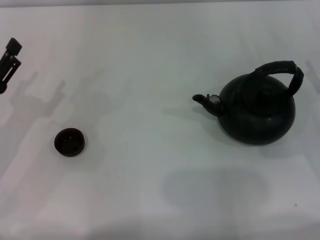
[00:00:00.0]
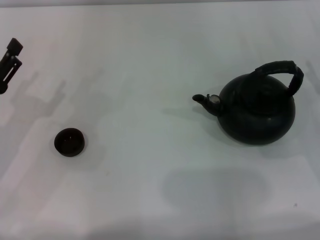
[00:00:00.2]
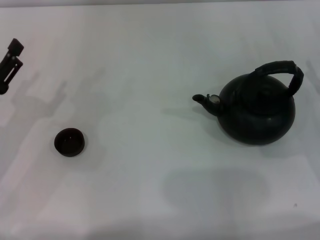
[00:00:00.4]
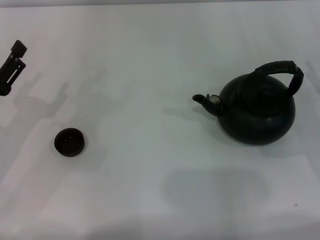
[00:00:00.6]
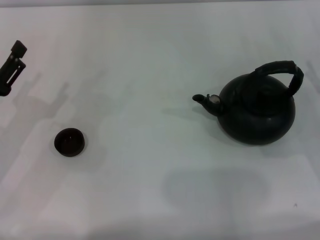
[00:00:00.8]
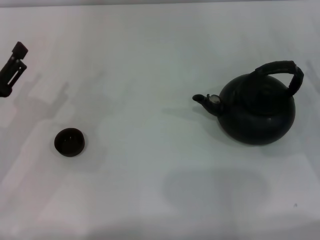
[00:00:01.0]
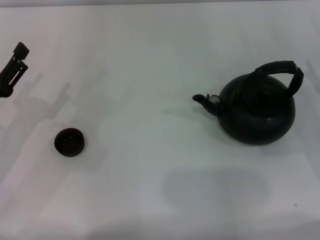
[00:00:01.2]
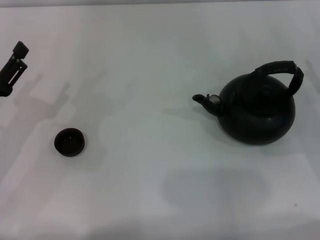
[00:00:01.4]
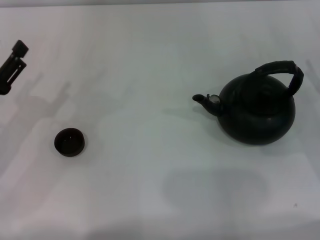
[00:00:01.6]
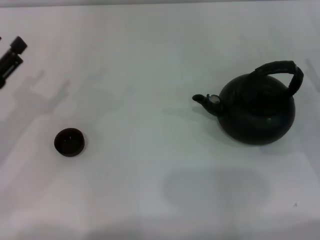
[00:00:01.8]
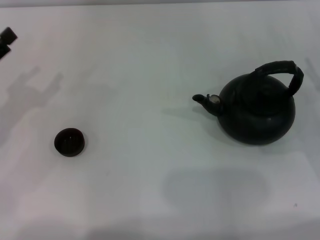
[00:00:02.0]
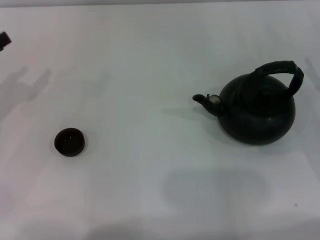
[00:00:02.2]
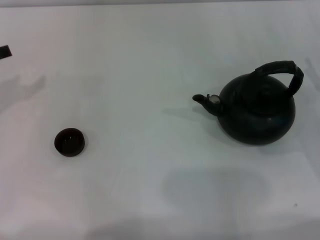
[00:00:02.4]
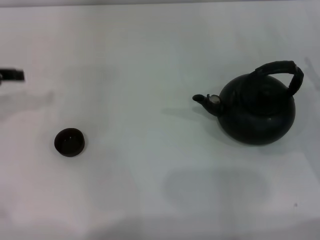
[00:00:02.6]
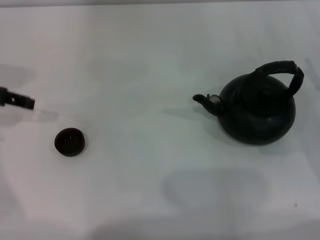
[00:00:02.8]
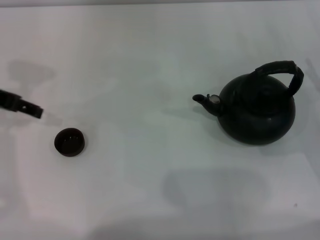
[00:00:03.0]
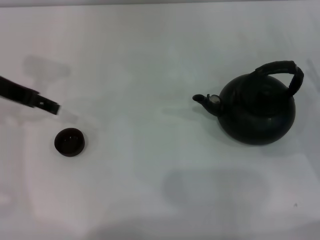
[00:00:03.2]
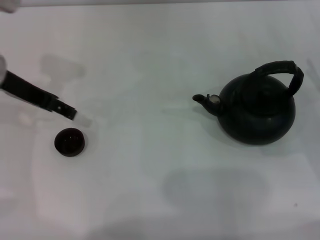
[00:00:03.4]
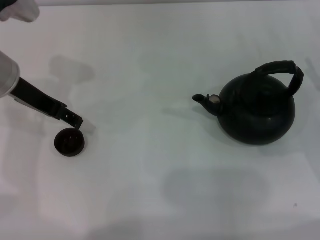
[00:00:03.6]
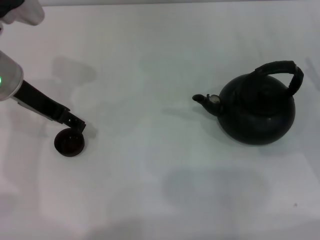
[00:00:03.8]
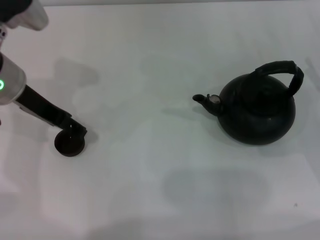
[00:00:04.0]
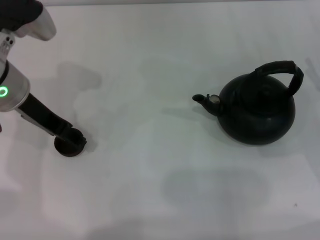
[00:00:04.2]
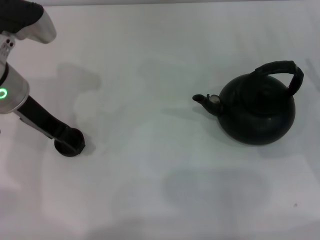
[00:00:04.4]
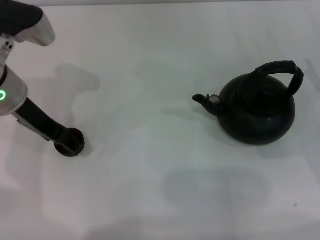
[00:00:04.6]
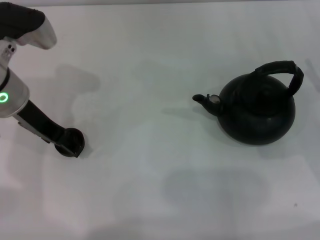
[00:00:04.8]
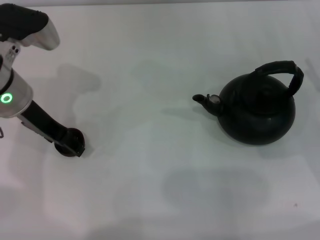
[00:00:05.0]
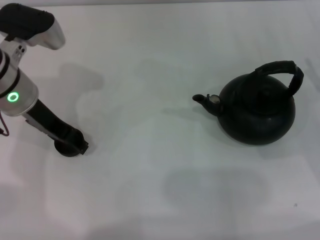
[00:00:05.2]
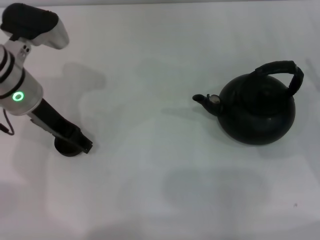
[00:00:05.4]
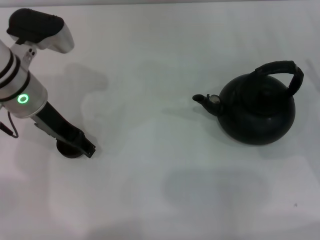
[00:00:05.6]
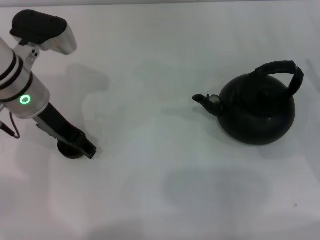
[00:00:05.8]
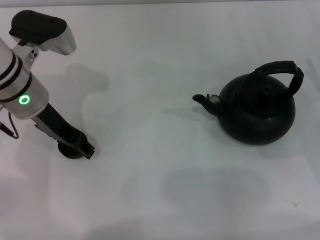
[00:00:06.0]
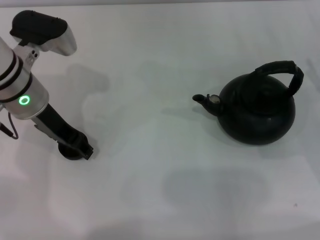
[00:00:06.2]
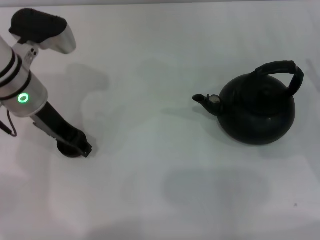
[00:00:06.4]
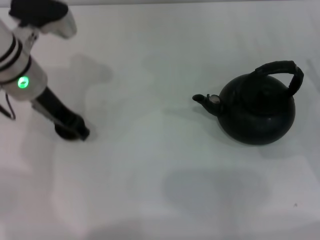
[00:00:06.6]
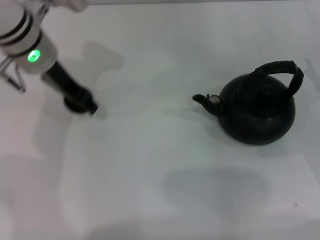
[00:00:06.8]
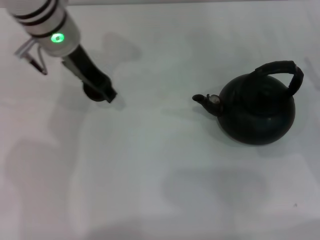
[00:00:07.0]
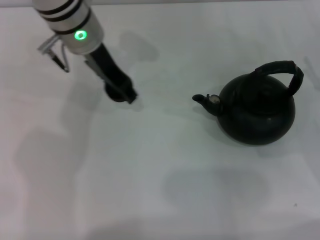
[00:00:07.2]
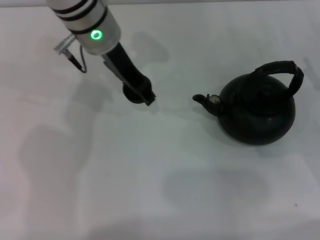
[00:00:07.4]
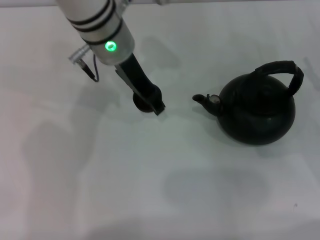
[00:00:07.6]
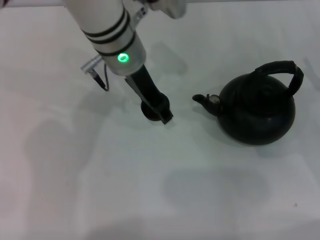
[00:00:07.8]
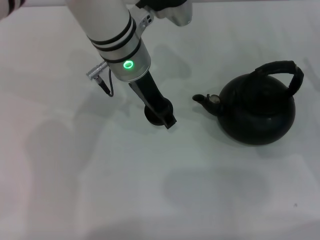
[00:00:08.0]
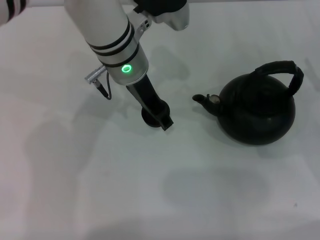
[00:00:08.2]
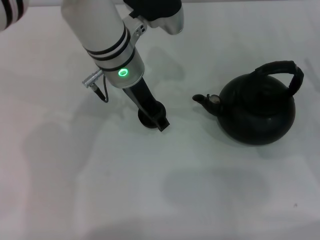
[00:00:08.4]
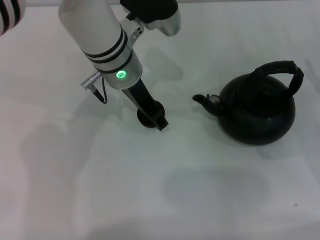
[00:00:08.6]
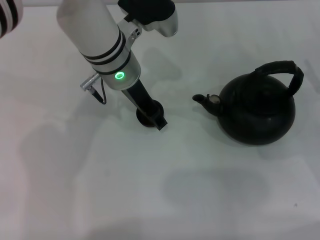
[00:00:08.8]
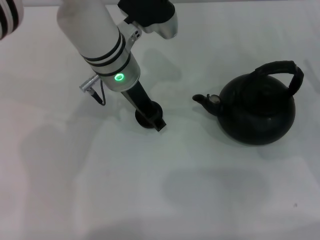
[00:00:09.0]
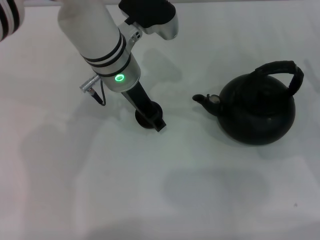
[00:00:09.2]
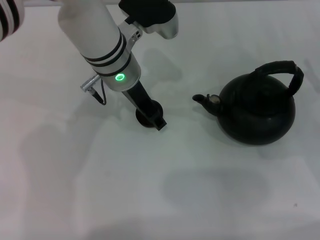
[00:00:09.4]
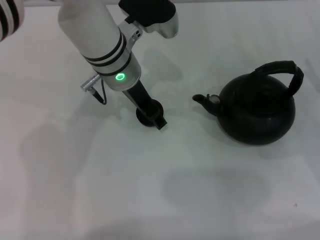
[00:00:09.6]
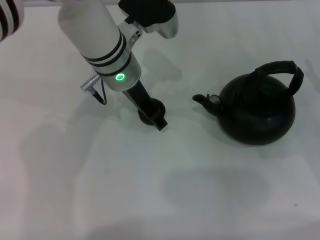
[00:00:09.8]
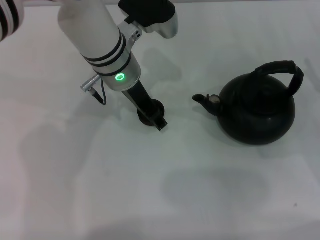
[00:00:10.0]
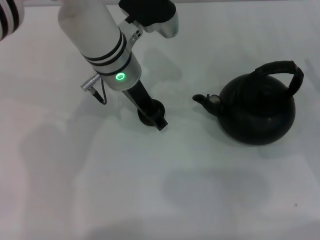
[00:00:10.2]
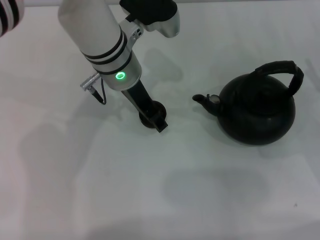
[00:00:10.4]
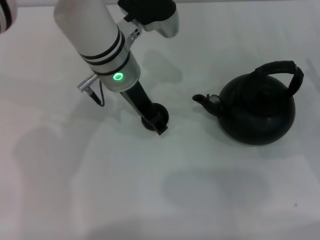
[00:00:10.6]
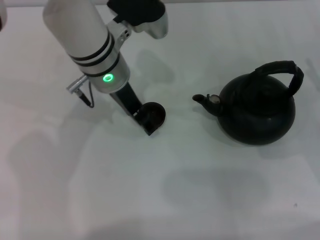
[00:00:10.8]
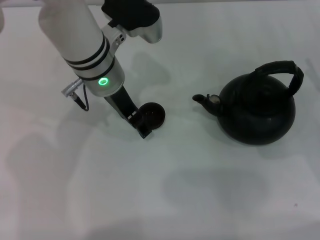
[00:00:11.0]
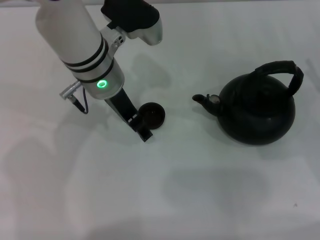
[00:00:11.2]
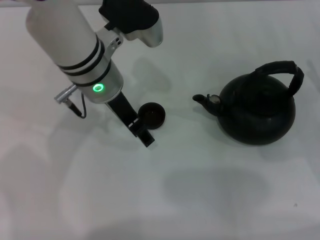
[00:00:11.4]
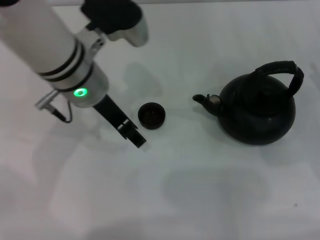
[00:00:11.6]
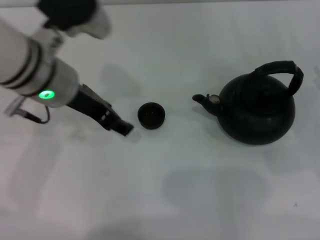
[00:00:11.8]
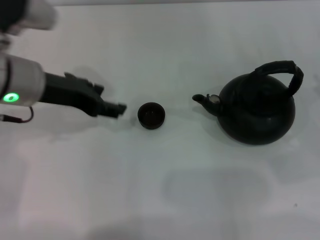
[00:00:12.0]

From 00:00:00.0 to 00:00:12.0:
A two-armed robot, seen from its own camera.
Task of the whole recording: Grasp the handle of the teapot with one hand and pour tea into the teacup.
Step, from 00:00:00.0 to 00:00:06.8: Pick up the teacup with the left gripper.
Step, from 00:00:07.0 to 00:00:11.2: Place the teacup in the center of view with the left gripper.
From 00:00:01.6 to 00:00:03.0: The left gripper travels upward and forward by about 15 cm.
From 00:00:03.0 to 00:00:04.4: The left gripper moves to the right, roughly 5 cm.
From 00:00:04.4 to 00:00:06.0: The grippers move only a little.
From 00:00:06.0 to 00:00:07.6: The left gripper goes roughly 15 cm to the right and forward, and closes its fingers.
From 00:00:07.6 to 00:00:09.0: There are only small adjustments of the grippers.
From 00:00:09.0 to 00:00:10.4: The left gripper opens.
From 00:00:10.4 to 00:00:12.0: The left gripper travels to the left and backward by about 15 cm.

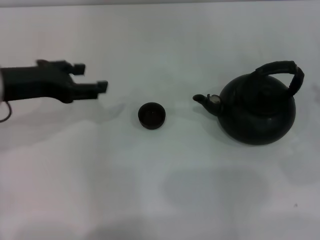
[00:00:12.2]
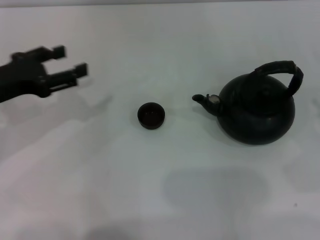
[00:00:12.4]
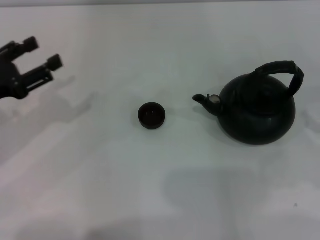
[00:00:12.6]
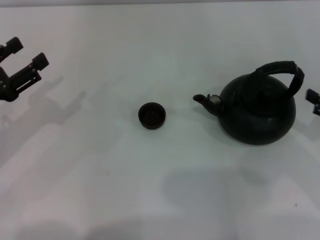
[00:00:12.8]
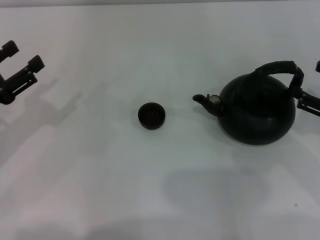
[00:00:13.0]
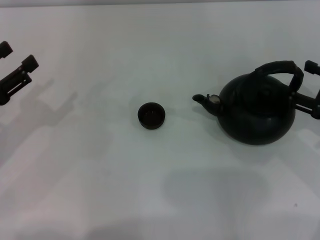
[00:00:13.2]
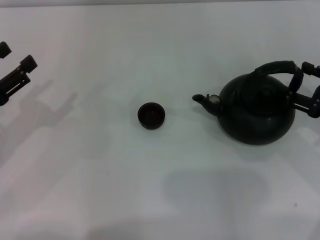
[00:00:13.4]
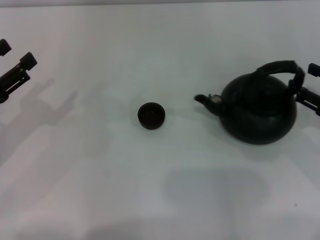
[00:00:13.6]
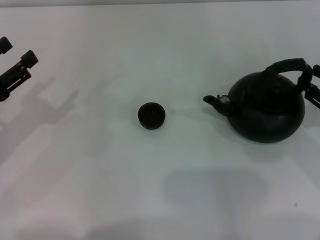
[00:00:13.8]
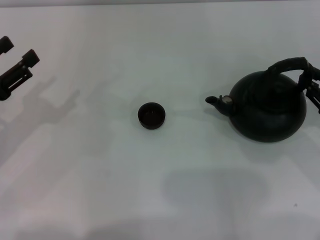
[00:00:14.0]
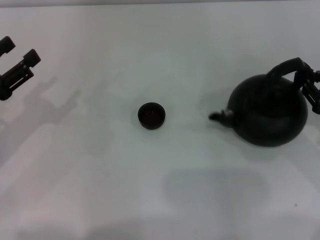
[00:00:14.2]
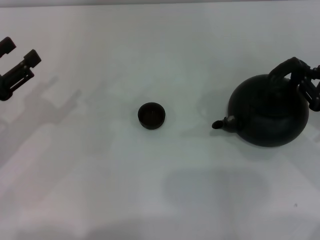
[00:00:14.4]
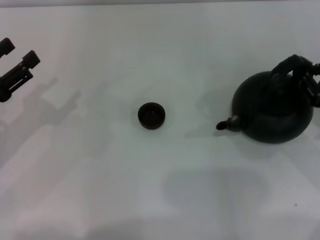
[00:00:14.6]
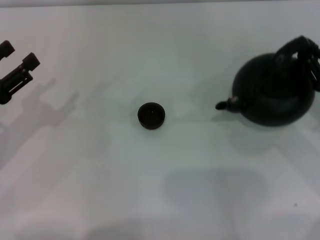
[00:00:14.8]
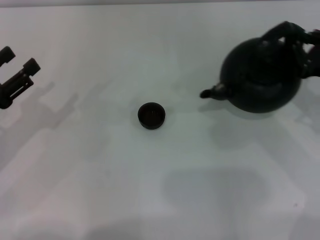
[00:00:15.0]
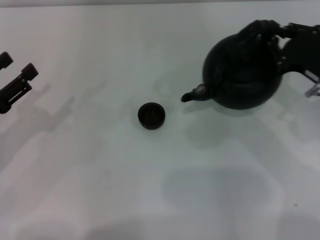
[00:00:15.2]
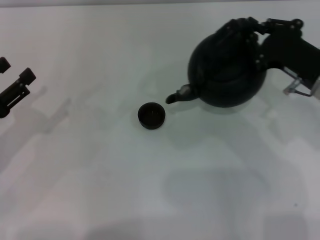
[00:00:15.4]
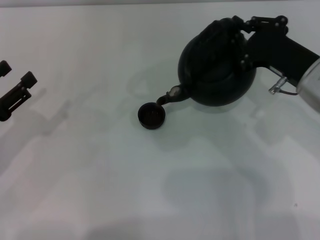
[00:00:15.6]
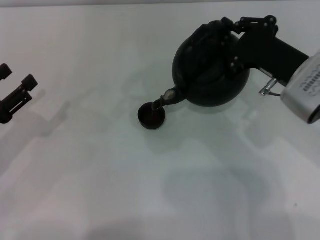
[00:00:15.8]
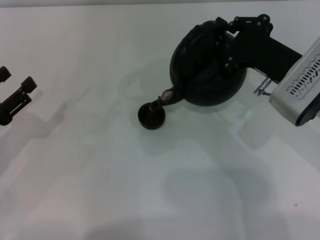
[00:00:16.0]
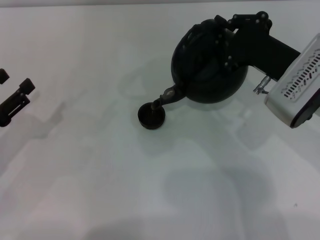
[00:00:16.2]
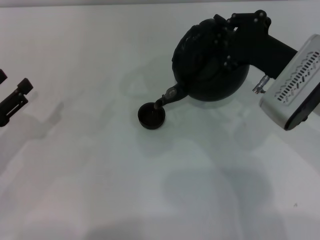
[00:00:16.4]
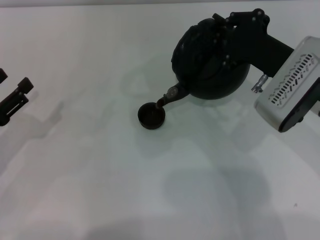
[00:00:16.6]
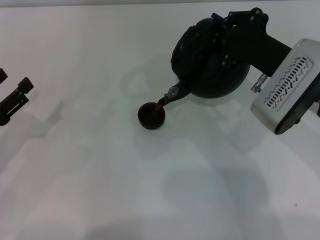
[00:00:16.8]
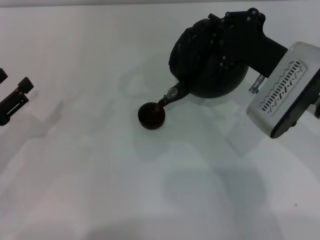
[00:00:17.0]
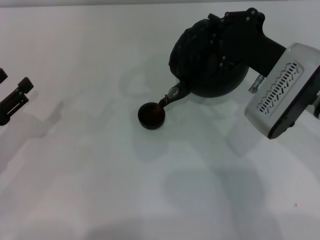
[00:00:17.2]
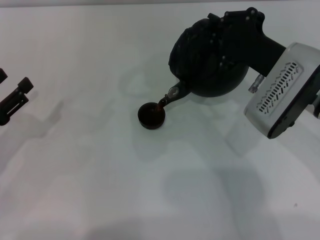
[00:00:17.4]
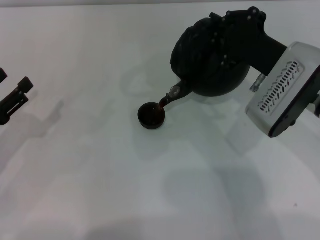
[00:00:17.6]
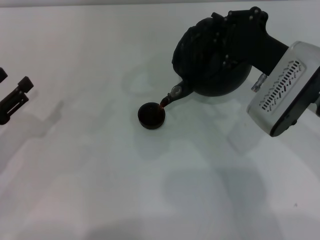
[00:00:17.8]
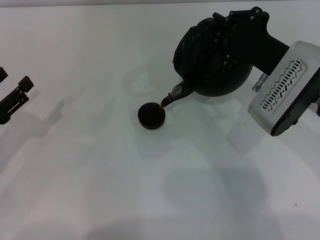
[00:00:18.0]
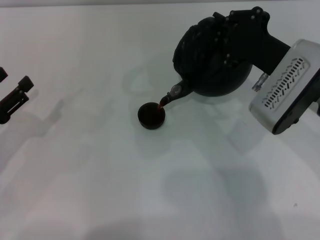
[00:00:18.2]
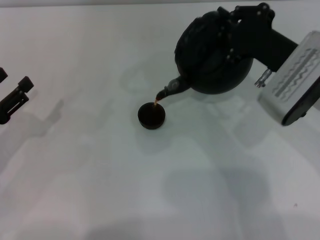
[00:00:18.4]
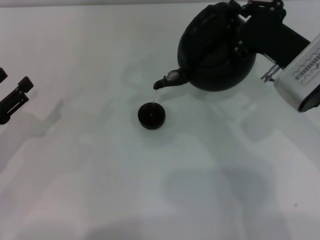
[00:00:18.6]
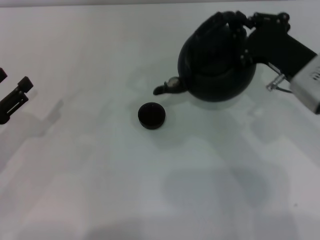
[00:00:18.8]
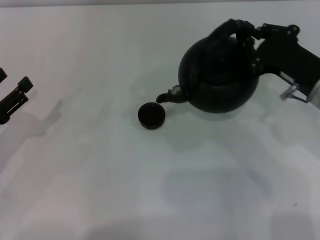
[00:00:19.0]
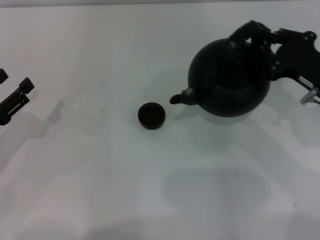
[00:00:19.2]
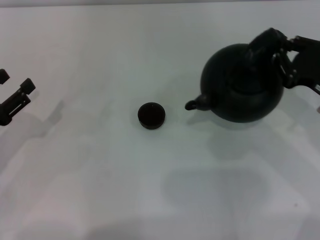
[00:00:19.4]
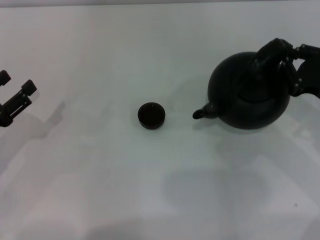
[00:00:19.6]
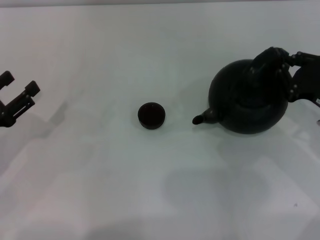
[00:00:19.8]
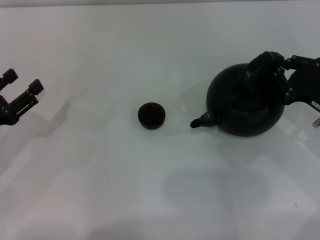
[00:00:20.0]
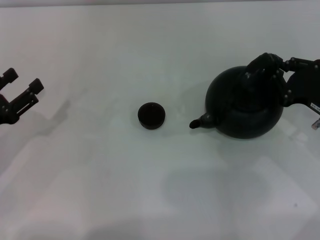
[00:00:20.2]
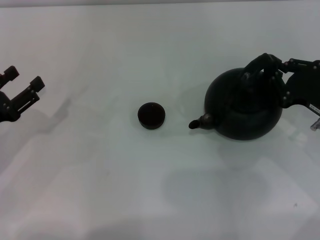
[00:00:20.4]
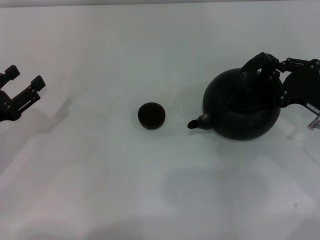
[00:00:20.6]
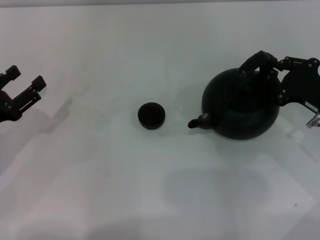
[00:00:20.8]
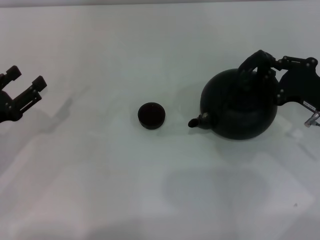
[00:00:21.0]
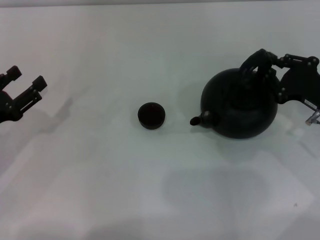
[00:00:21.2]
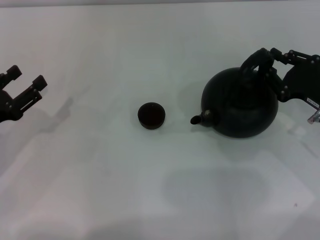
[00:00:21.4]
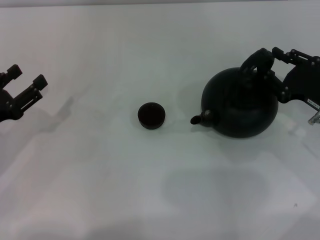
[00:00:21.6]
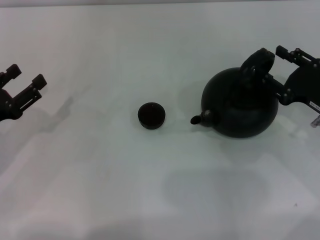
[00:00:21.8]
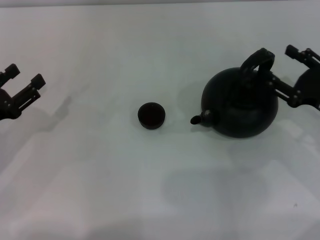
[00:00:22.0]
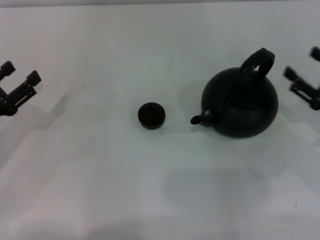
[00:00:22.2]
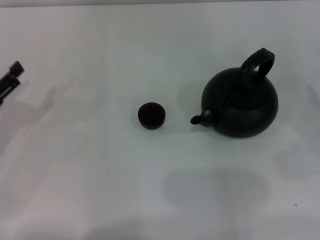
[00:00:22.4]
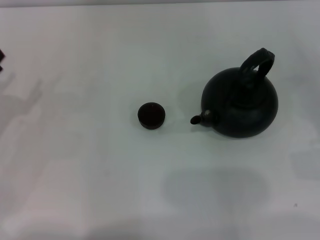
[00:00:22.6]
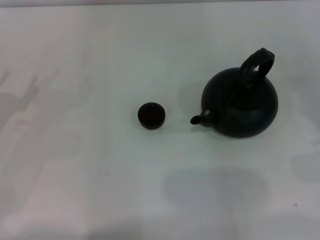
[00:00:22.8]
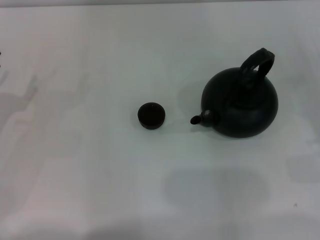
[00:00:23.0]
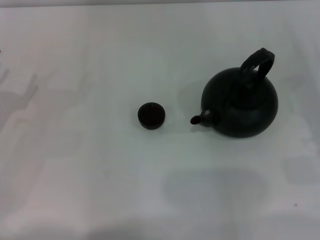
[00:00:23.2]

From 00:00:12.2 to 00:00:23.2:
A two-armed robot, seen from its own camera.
Task of the whole recording: Grasp the handle of the teapot with one hand and pour tea into the teacup.
Step, from 00:00:12.2 to 00:00:15.0: Pick up the teapot with the right gripper.
Step, from 00:00:15.2 to 00:00:18.6: Pour tea into the teacup with the right gripper.
Step, from 00:00:18.8 to 00:00:22.2: Put down the teapot with the right gripper.
From 00:00:12.2 to 00:00:13.8: The right gripper ends up about 5 cm from where it was. Meanwhile the left gripper travels to the left, downward and backward by about 10 cm.
From 00:00:13.8 to 00:00:15.4: The right gripper moves to the left and forward, some 10 cm, and closes.
From 00:00:15.4 to 00:00:17.0: The right gripper shifts approximately 5 cm to the left.
From 00:00:17.0 to 00:00:18.4: The grippers move only a little.
From 00:00:18.4 to 00:00:20.0: The right gripper shifts about 10 cm to the right and downward.
From 00:00:20.0 to 00:00:21.6: There are only small adjustments of the grippers.
From 00:00:21.6 to 00:00:23.2: The right gripper travels to the right and backward by approximately 10 cm, and opens up.
